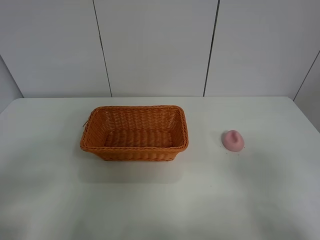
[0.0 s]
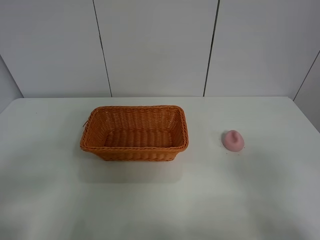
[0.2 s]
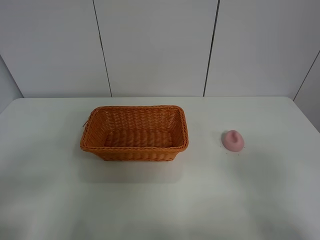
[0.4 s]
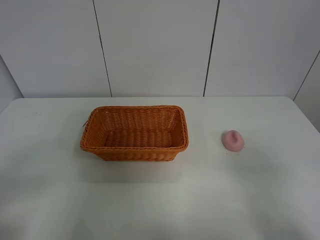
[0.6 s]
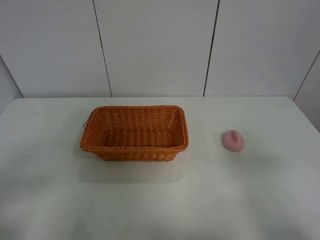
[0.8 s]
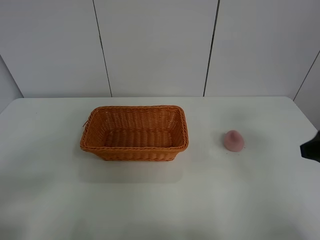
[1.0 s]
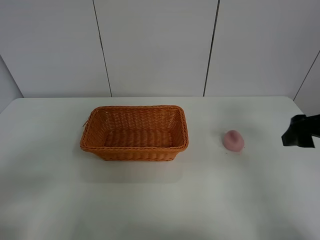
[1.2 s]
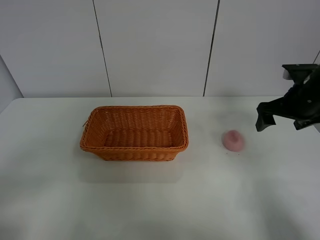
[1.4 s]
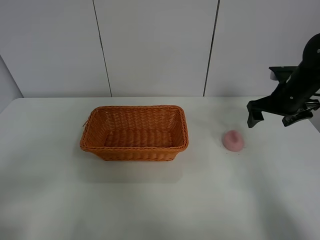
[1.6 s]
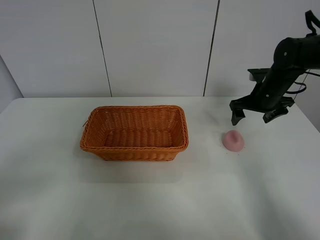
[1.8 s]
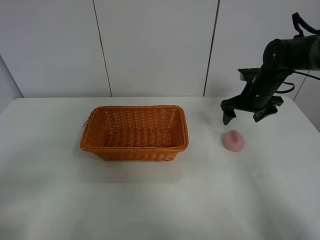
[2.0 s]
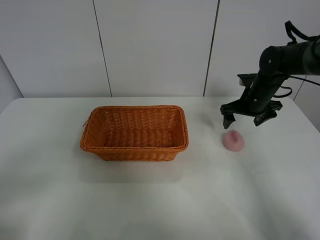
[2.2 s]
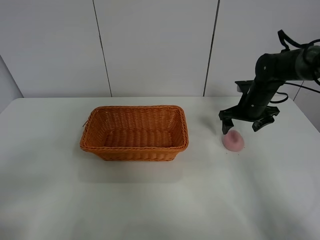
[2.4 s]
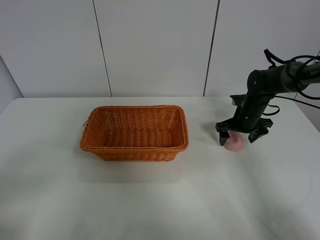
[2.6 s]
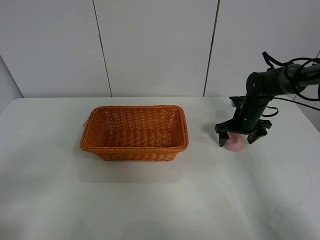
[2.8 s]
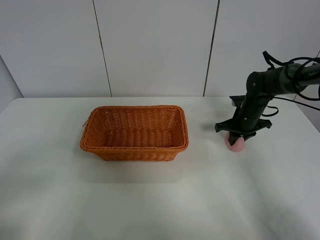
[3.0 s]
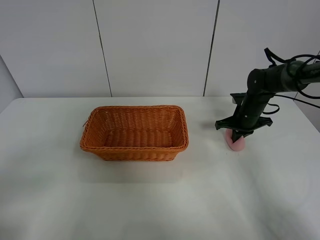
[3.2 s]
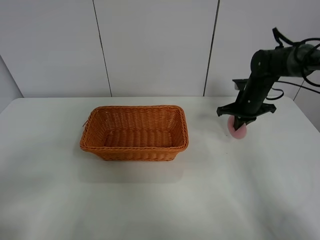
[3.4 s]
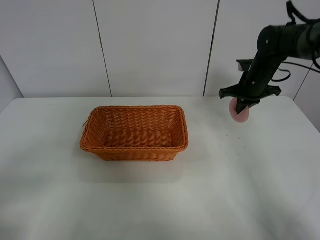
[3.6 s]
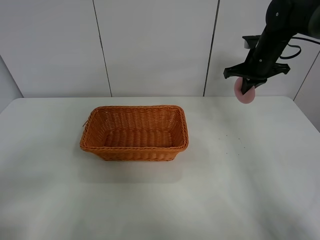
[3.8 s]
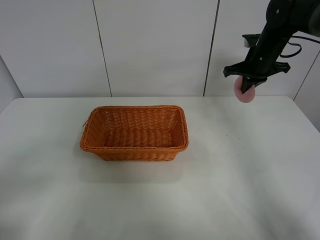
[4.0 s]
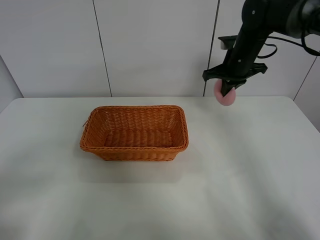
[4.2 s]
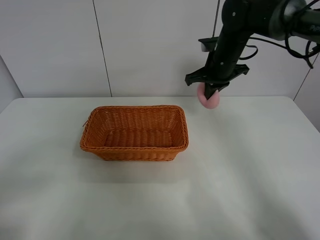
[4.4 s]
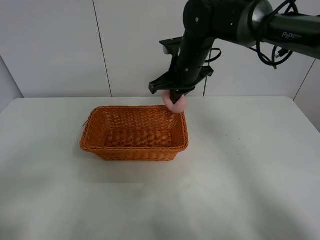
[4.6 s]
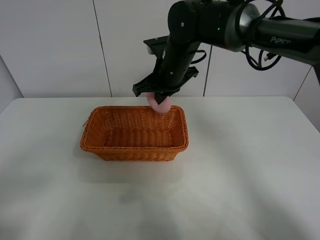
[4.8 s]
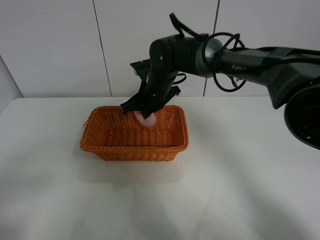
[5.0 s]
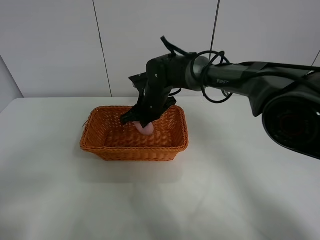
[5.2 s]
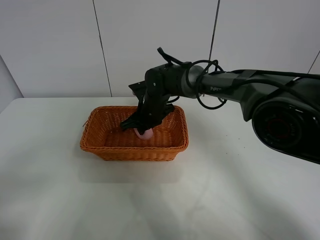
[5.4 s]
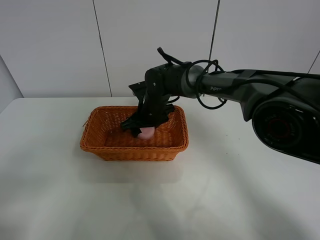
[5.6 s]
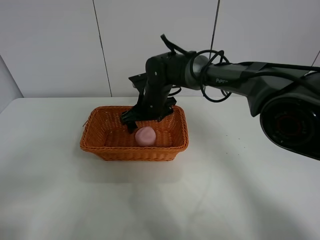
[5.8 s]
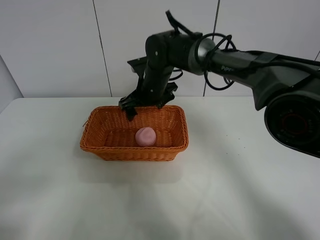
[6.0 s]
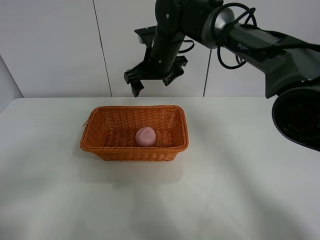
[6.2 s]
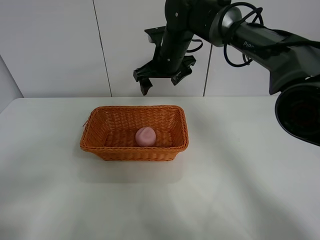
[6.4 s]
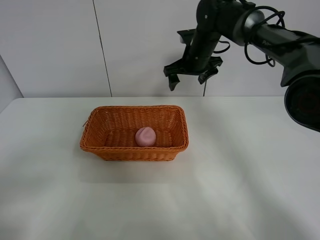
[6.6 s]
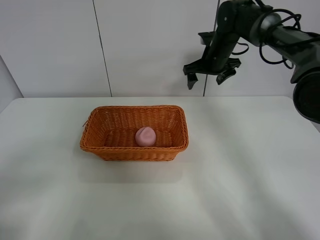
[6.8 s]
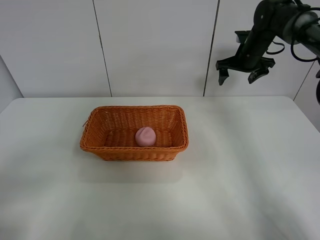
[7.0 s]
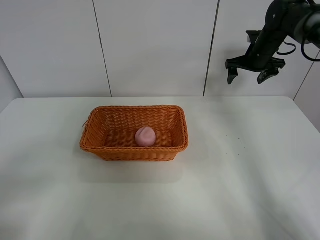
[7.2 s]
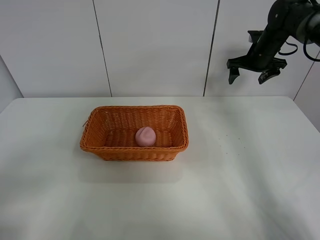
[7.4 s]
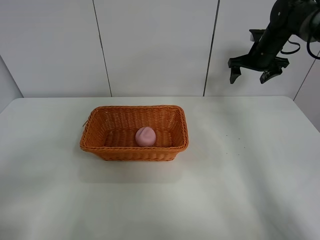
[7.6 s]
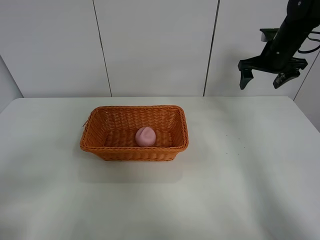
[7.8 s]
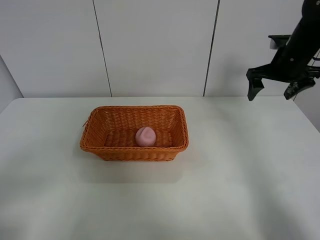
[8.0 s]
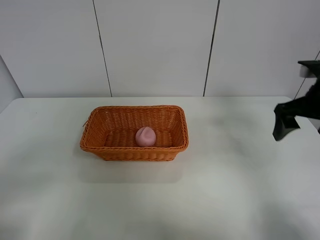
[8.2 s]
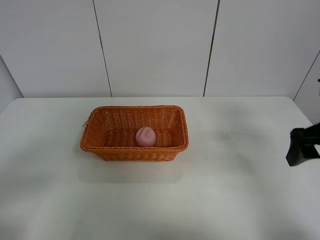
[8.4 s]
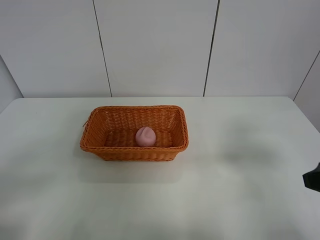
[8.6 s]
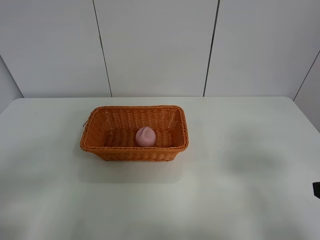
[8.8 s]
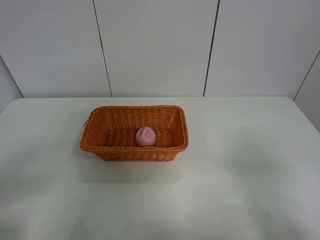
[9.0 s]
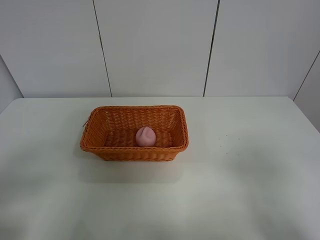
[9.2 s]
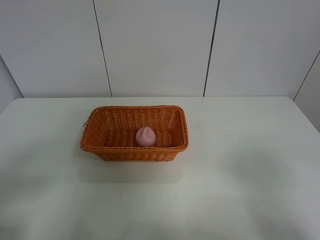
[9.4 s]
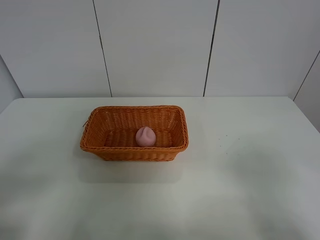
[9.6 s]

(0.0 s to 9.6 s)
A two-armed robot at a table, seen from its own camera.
Step, 0.0 s - 3.2 s: Grasp the peach with right gripper.
Step, 3.4 s - 6.0 s: Place the peach in the basket with right gripper.
0.0 s - 1.6 s: The right gripper goes some 35 cm forward.
1.6 s - 3.2 s: The right gripper travels downward by approximately 10 cm, and closes up.
3.2 s - 4.8 s: The right gripper goes about 25 cm to the left and upward.
4.8 s - 6.4 s: The right gripper goes approximately 5 cm forward, reaches approximately 10 cm downward, then returns, and opens its fingers.
6.4 s - 8.0 s: The right gripper shifts roughly 25 cm to the right.
8.0 s - 9.6 s: The right gripper heads backward, covering about 35 cm.

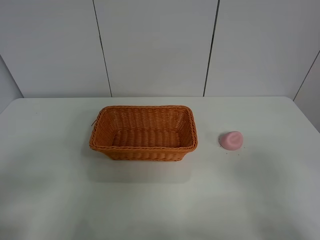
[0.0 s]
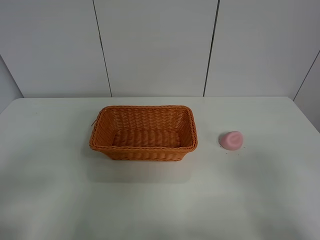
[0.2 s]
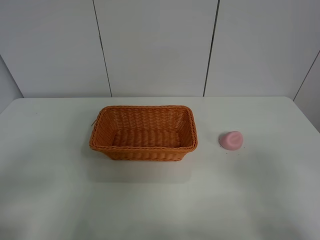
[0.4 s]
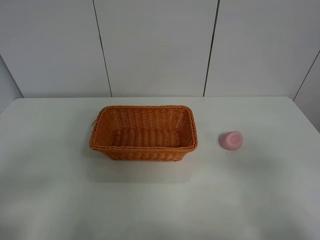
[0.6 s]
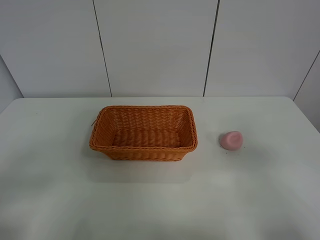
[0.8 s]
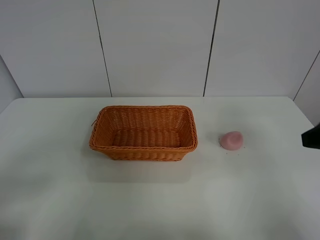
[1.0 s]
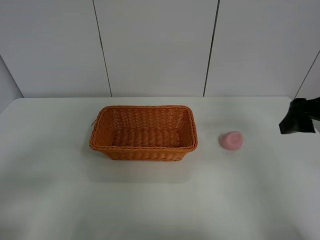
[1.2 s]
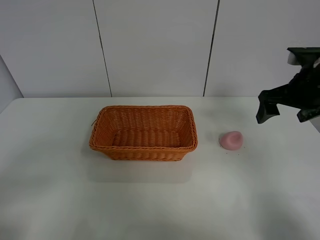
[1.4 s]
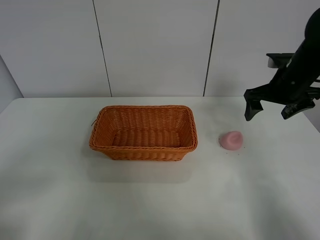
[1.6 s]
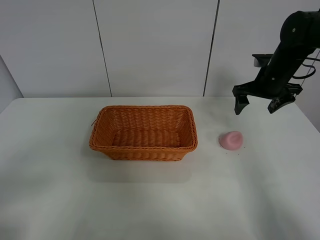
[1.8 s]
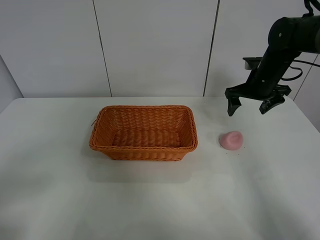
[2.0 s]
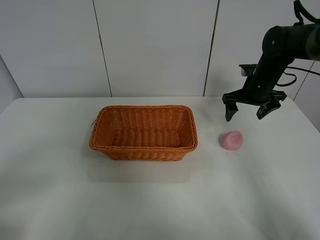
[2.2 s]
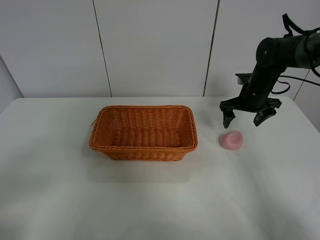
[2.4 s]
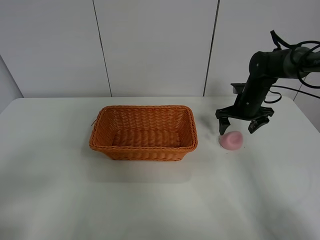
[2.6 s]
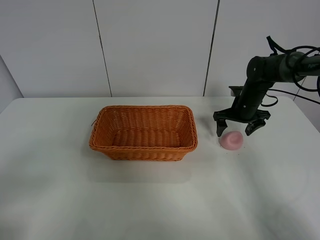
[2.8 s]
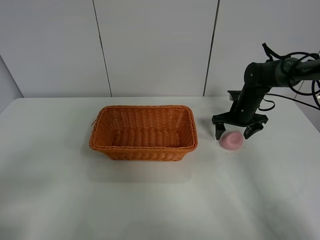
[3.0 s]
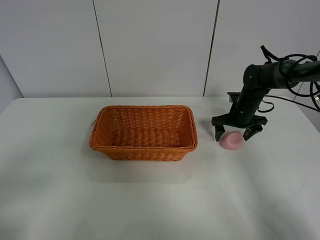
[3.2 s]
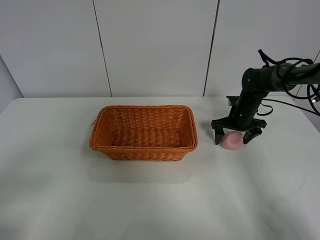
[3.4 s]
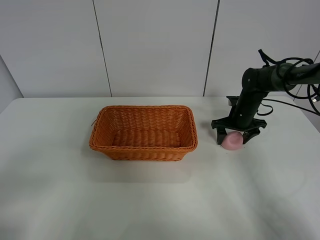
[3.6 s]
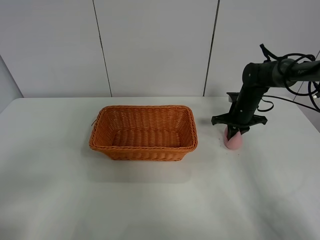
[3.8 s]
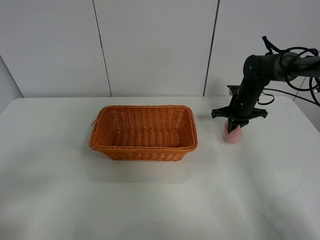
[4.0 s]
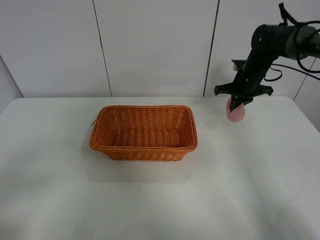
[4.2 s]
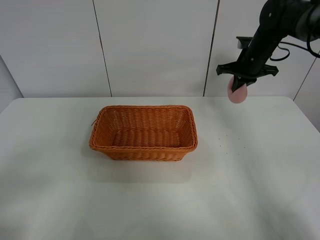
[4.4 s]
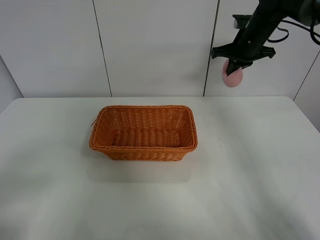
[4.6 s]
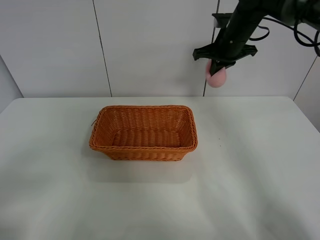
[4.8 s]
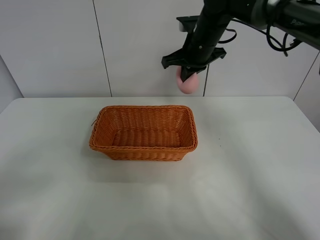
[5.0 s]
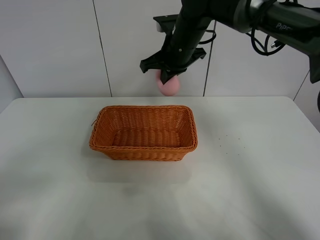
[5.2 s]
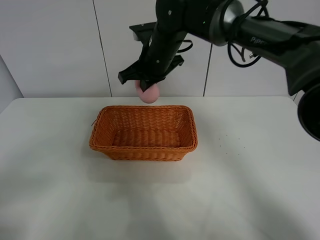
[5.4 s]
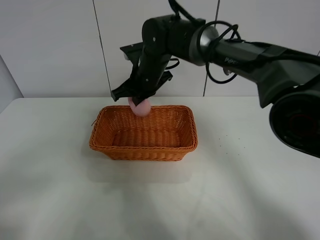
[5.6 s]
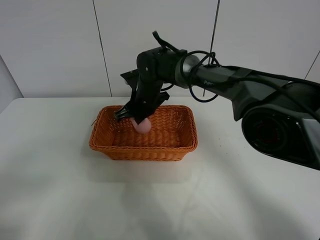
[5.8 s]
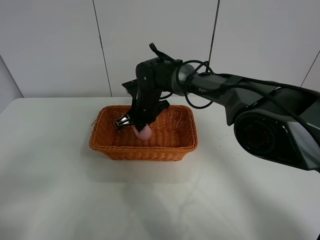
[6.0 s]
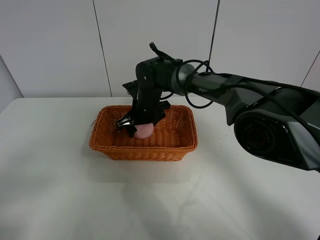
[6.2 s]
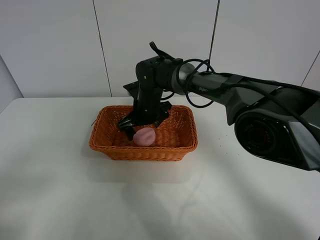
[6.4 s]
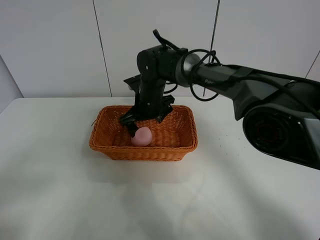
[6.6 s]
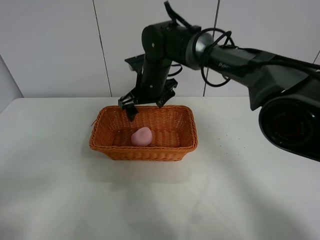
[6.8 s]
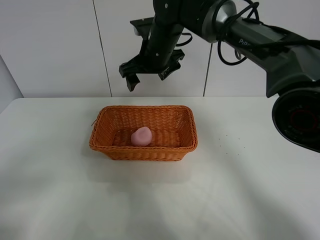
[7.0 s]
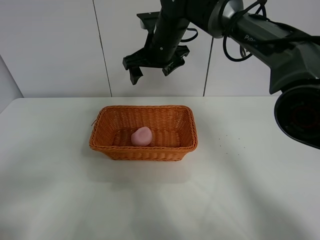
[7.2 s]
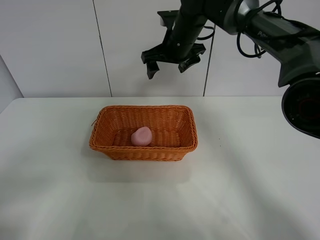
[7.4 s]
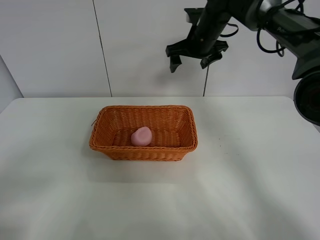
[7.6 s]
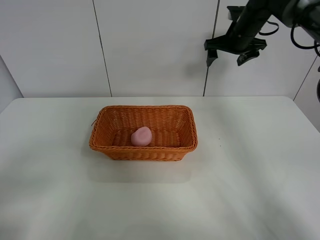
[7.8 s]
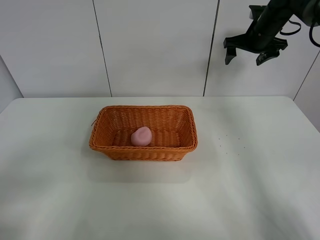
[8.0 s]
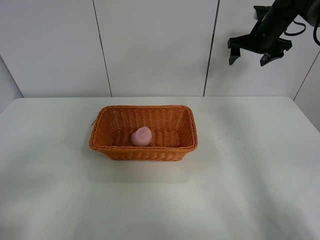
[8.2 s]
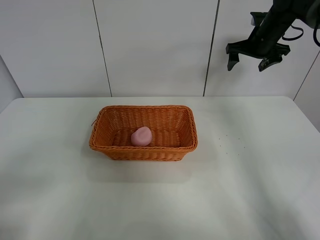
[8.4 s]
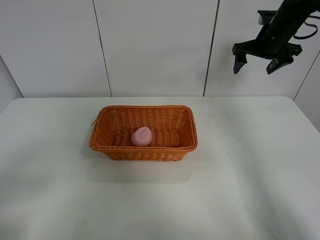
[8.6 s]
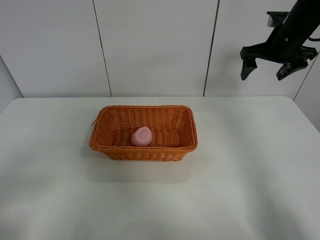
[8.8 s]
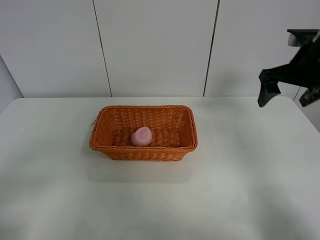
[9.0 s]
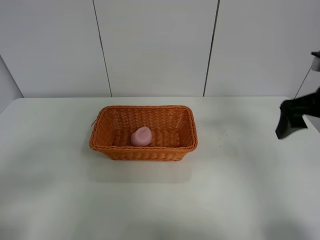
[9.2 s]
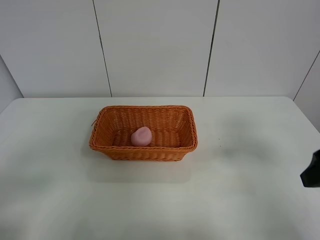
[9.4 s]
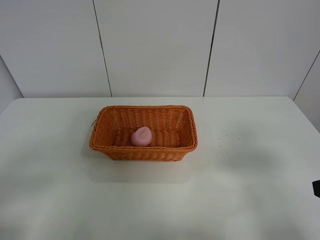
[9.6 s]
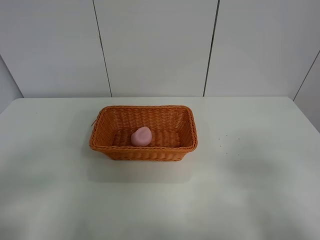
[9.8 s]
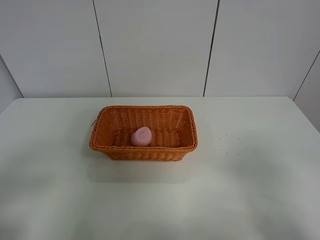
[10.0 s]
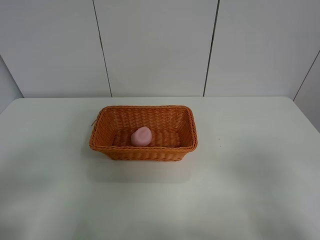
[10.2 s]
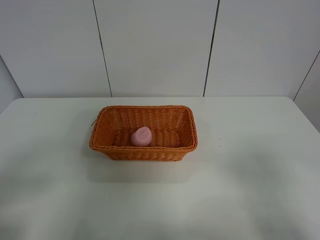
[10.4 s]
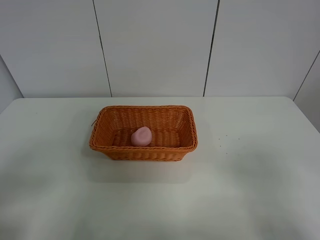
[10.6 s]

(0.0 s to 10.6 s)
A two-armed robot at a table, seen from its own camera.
Step, 0.0 s - 4.0 s: Grasp the peach with right gripper.
Step, 4.2 s - 7.2 s: Place the peach in the basket with right gripper.
0.0 s - 1.6 s: The right gripper goes some 35 cm forward.
1.6 s - 3.0 s: The right gripper travels downward and forward by roughly 15 cm.
3.0 s - 4.6 s: The right gripper moves upward, about 20 cm, and closes its fingers.
4.6 s - 6.0 s: The right gripper goes about 30 cm to the left and downward.
6.0 s - 7.6 s: The right gripper moves upward and to the right, about 20 cm, and opens its fingers.
7.6 s - 9.0 s: The right gripper is displaced to the right and backward by approximately 20 cm.
9.0 s - 10.6 s: The right gripper is displaced backward by approximately 30 cm.

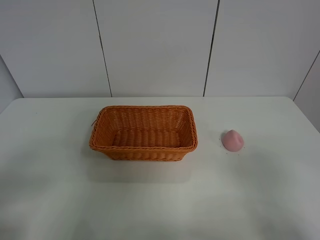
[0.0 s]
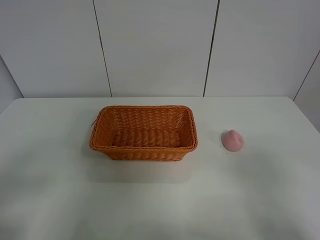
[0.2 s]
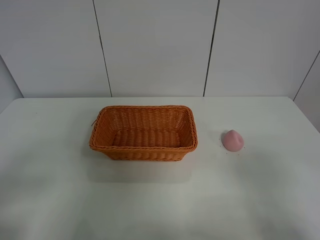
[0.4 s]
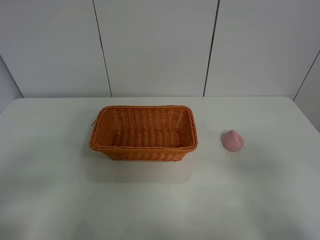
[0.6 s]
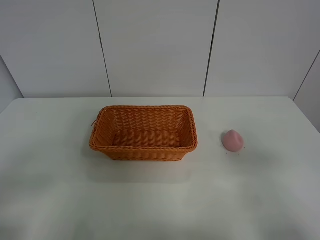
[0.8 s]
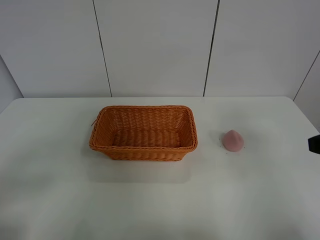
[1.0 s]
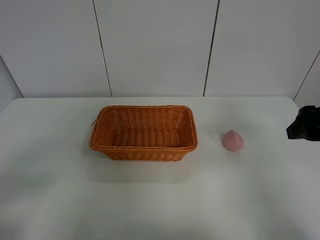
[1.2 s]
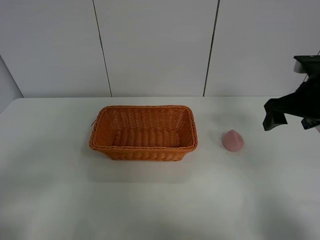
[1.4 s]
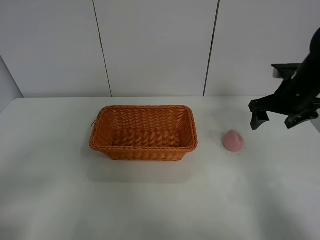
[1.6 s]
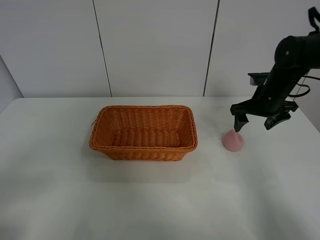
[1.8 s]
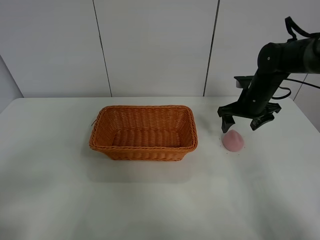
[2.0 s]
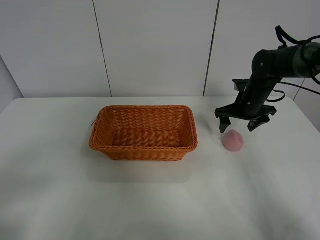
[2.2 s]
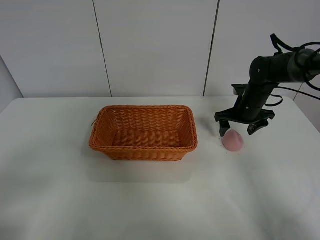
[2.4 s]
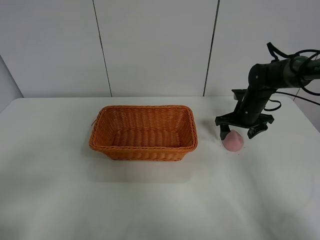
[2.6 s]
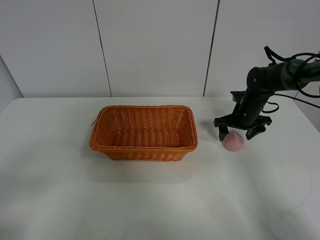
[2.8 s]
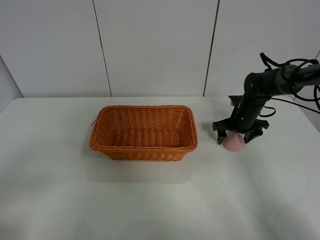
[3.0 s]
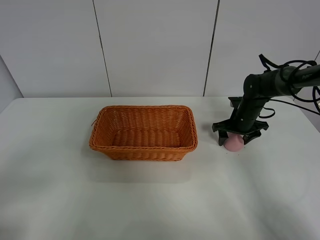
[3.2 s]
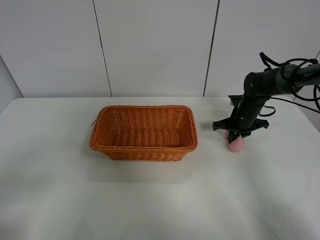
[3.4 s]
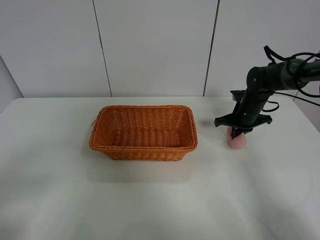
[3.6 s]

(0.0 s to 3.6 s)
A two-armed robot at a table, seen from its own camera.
Step, 0.0 s - 3.6 s: Grasp the peach with right gripper.
0.0 s - 1.8 s: The right gripper travels forward by roughly 40 cm.
1.8 s - 3.6 s: The right gripper heads downward, covering roughly 5 cm, and closes up.
